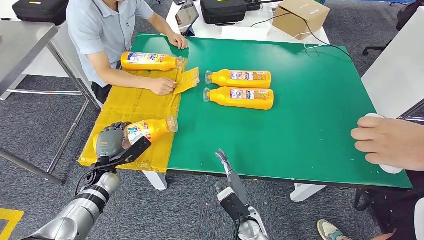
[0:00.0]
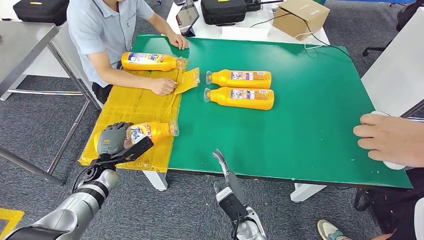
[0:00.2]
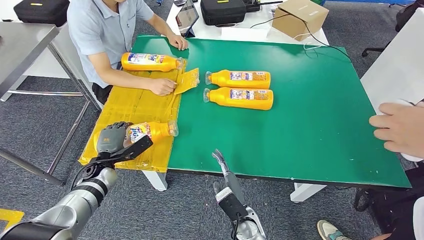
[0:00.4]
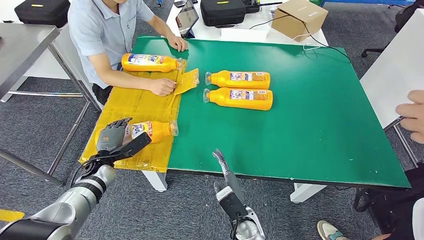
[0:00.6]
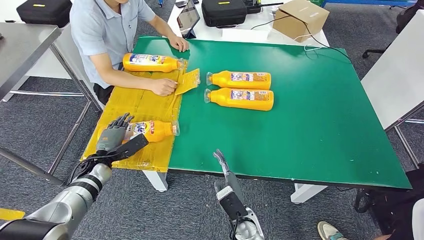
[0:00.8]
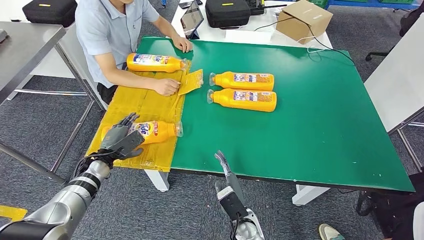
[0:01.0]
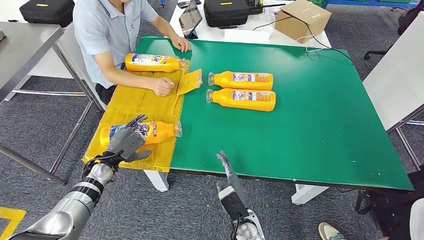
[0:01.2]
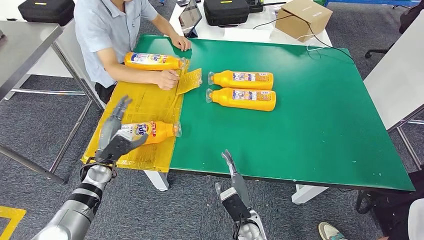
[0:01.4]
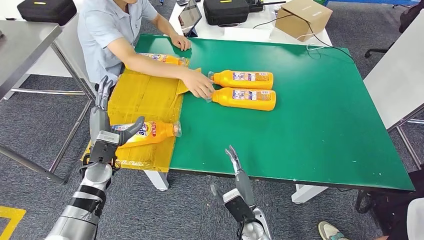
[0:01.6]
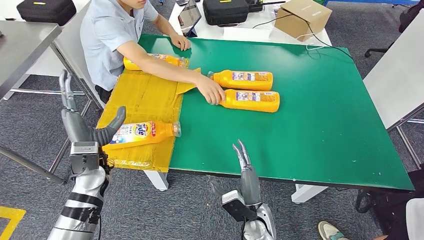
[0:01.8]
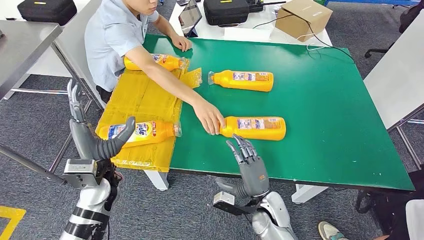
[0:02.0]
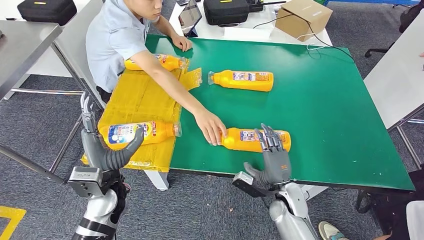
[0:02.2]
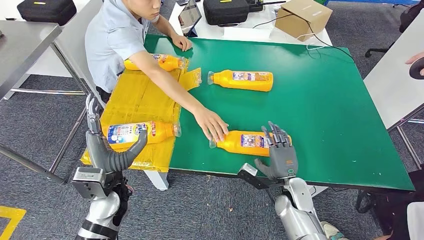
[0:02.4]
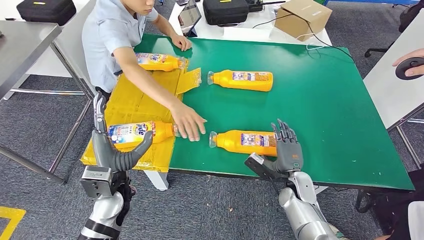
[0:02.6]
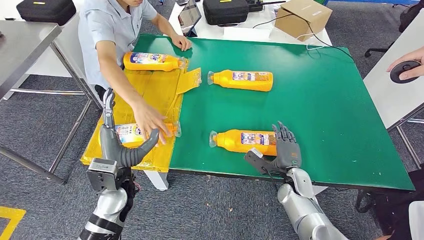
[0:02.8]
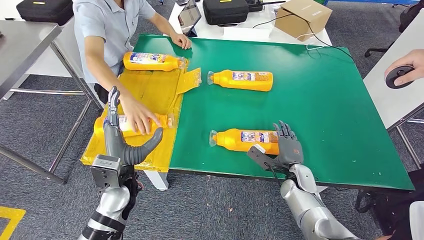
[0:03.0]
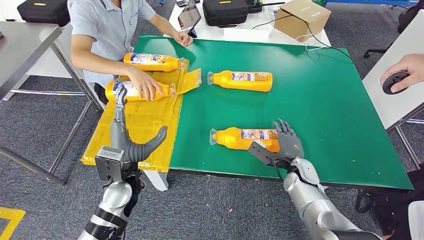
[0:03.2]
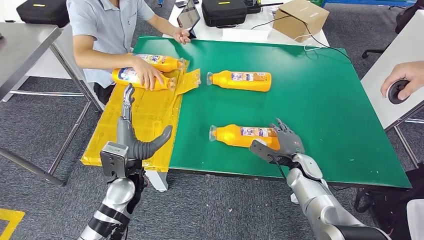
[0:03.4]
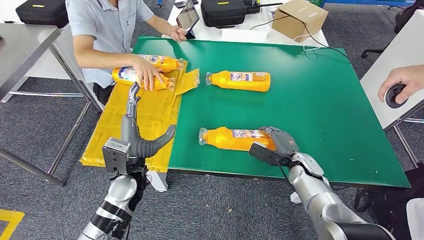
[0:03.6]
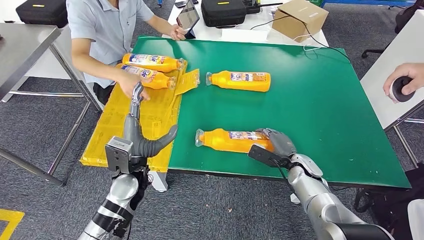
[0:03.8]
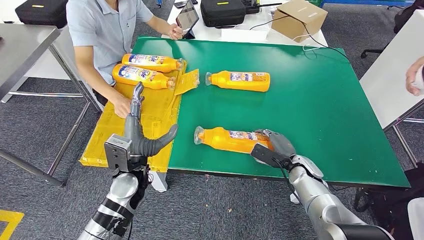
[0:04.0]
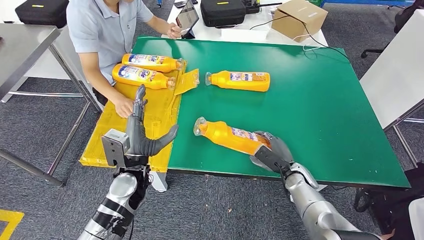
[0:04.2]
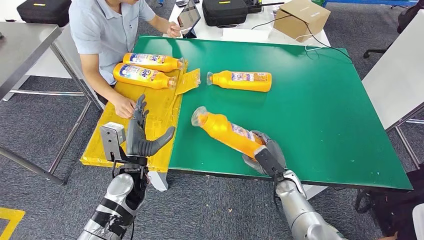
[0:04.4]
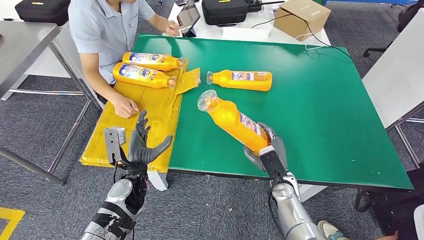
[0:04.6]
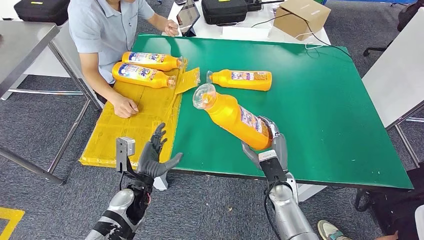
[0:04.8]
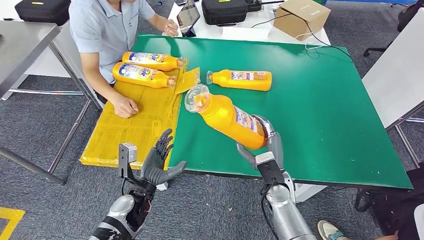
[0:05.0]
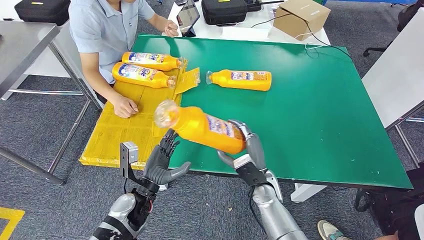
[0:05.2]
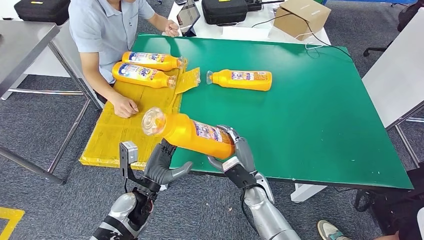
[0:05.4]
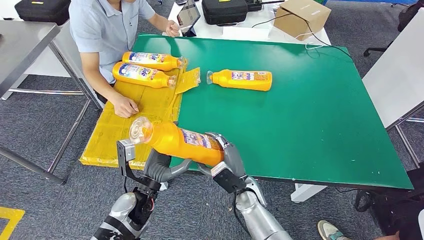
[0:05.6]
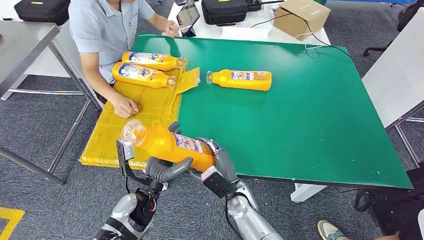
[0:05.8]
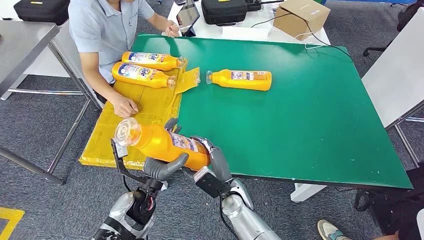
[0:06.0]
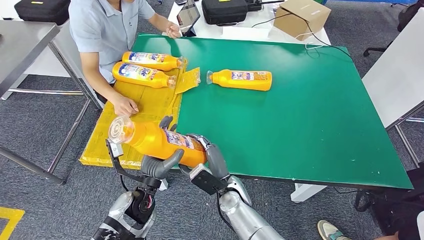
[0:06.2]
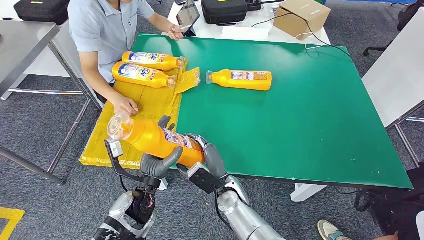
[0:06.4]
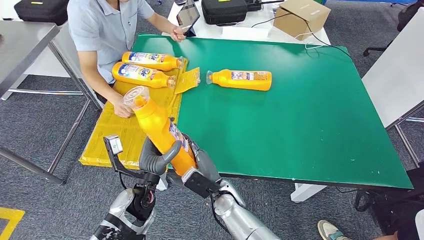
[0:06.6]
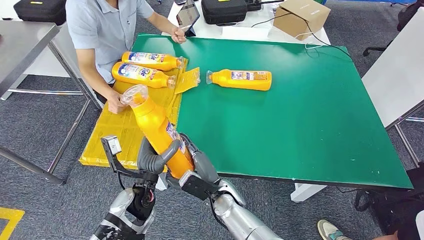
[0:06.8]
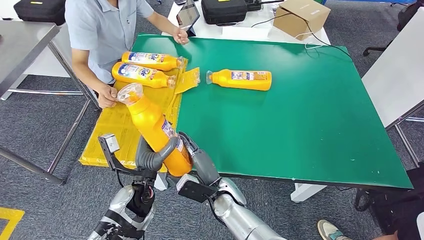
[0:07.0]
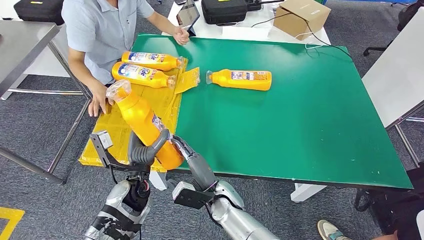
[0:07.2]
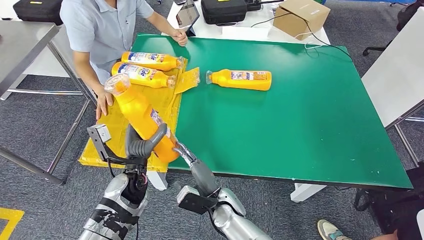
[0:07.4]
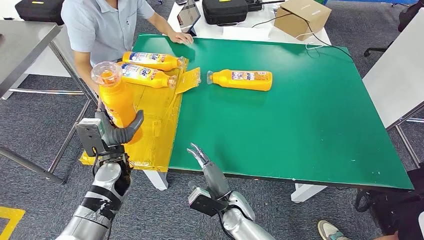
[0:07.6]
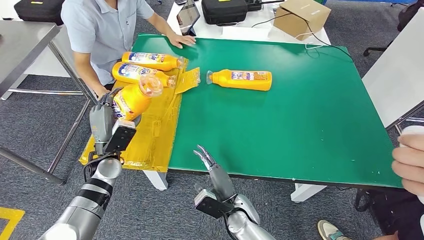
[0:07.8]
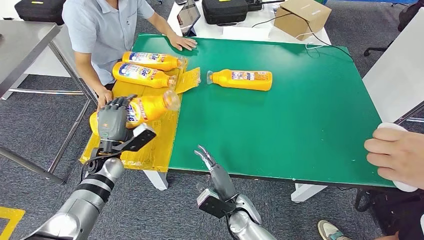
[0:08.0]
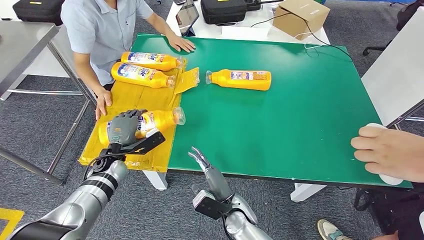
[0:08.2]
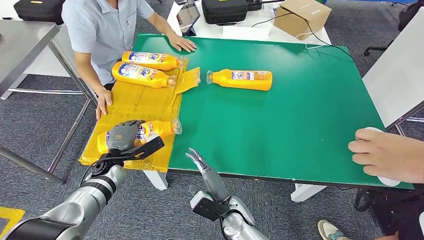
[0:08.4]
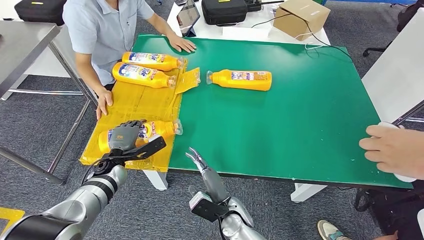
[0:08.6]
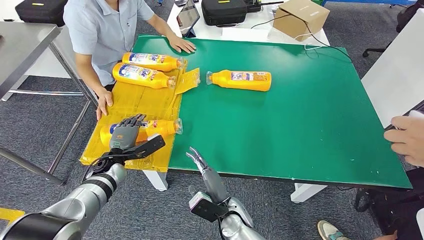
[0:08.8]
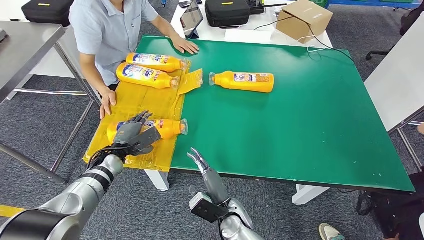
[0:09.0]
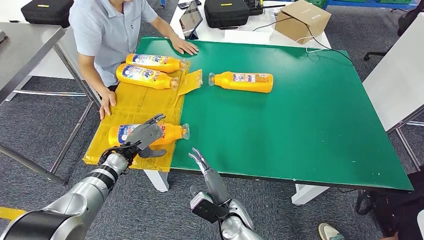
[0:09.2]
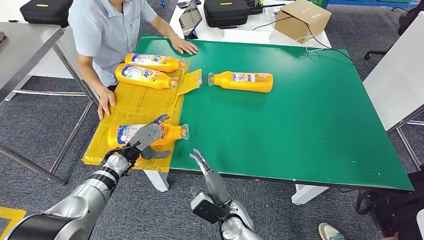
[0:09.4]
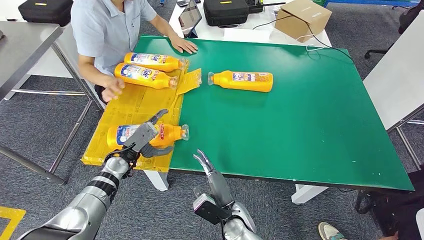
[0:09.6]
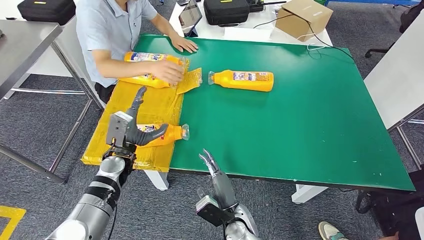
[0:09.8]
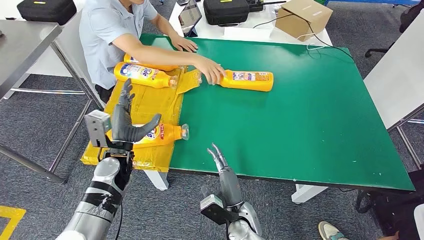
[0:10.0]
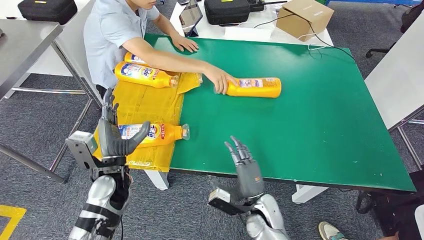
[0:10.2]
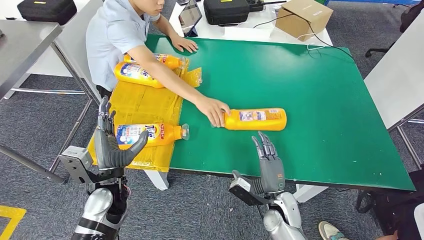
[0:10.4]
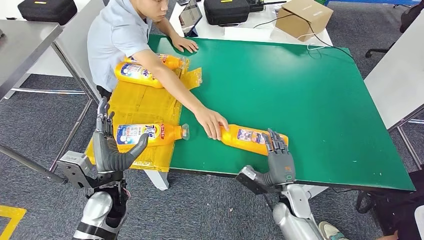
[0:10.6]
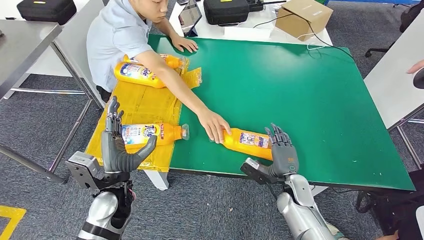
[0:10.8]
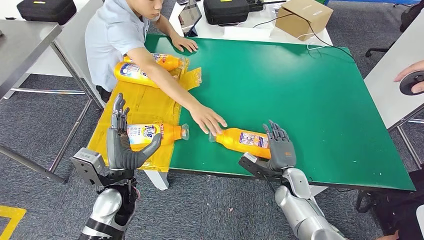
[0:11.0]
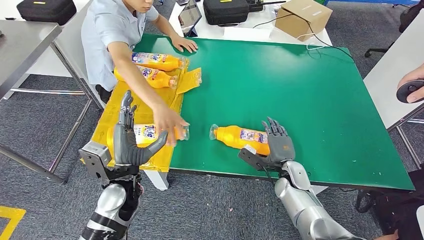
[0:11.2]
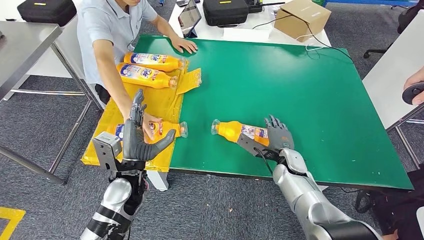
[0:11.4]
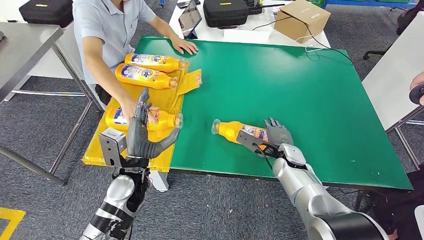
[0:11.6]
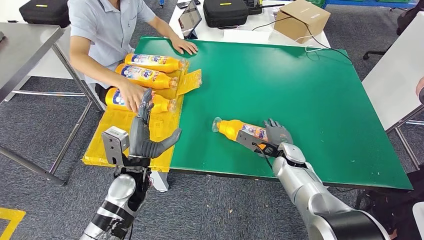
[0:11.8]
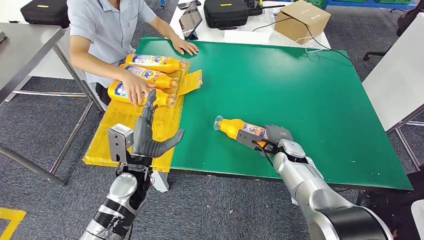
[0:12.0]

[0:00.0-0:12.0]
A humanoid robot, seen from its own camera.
Step, 0:03.8 to 0:05.2: Pick up the fast-moving consumer goods bottle from the table.
Step, 0:05.4 to 0:10.0: Flip the fast-moving consumer goods bottle to the front side.
0:06.0 to 0:07.6: The left hand heads to the left and forward, covering approximately 10 cm.

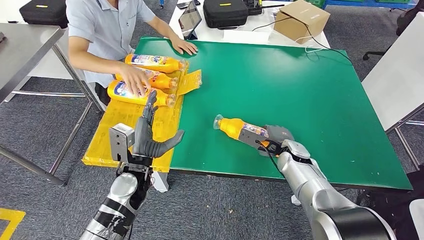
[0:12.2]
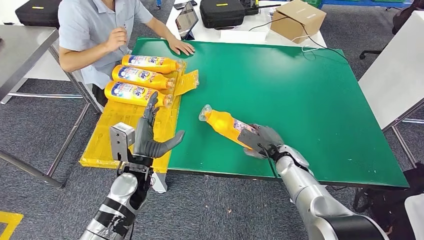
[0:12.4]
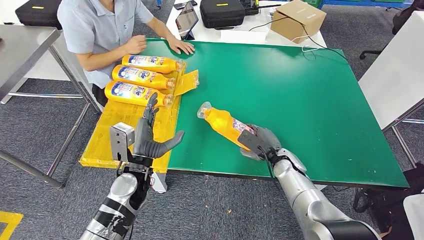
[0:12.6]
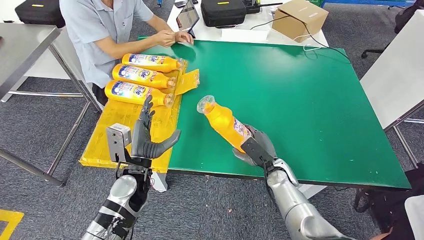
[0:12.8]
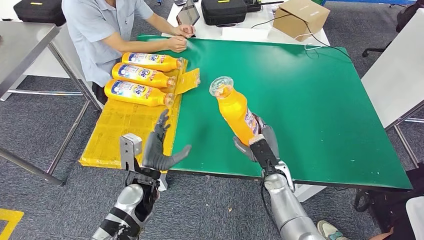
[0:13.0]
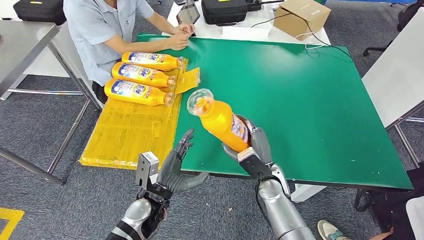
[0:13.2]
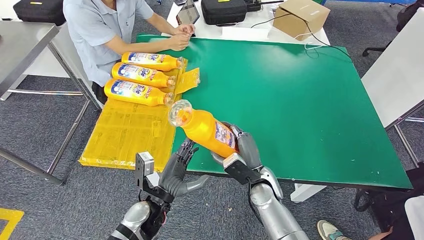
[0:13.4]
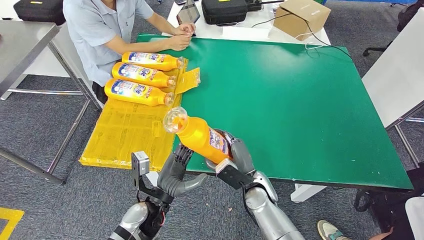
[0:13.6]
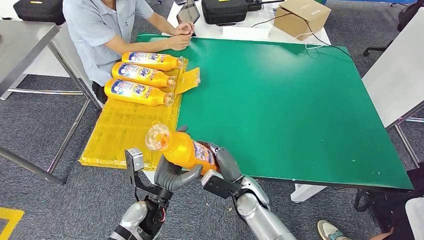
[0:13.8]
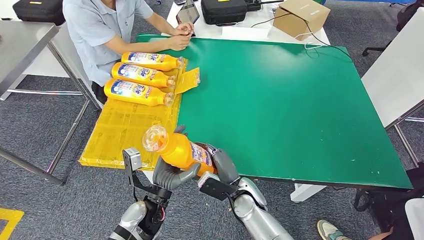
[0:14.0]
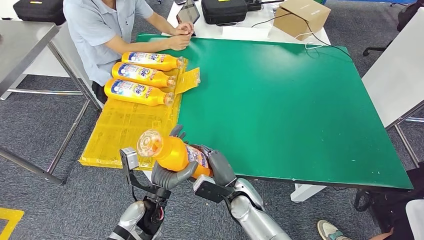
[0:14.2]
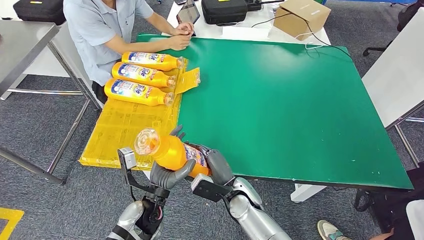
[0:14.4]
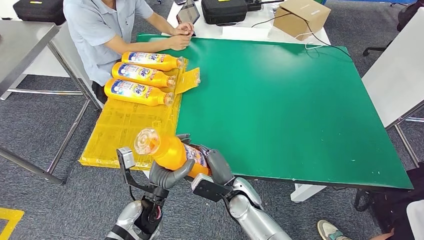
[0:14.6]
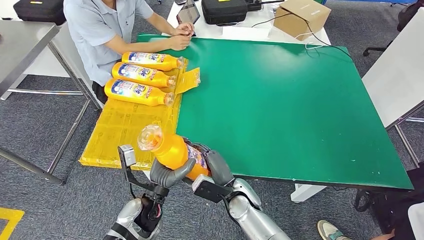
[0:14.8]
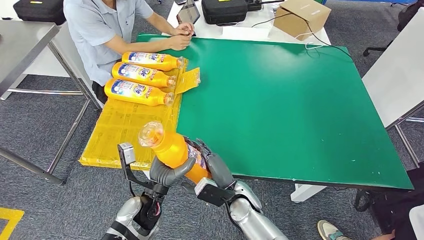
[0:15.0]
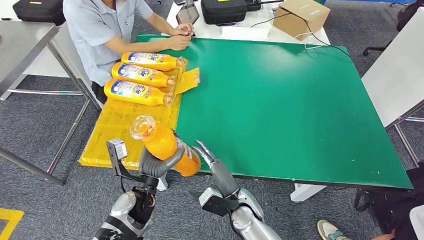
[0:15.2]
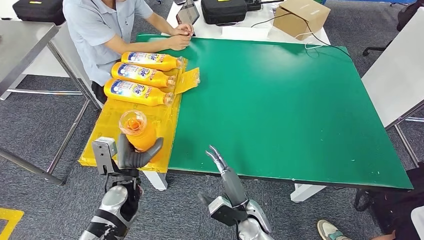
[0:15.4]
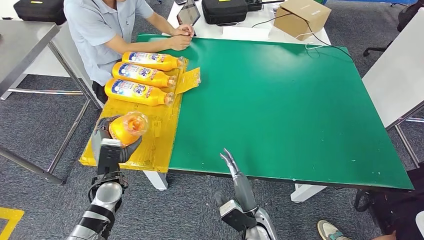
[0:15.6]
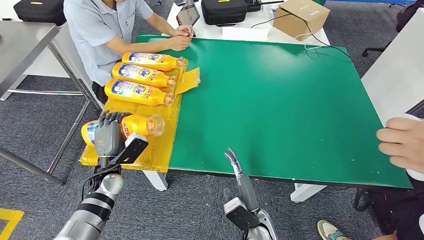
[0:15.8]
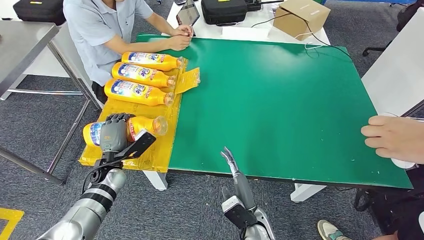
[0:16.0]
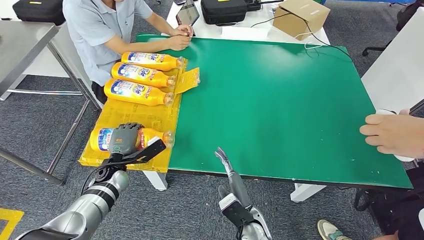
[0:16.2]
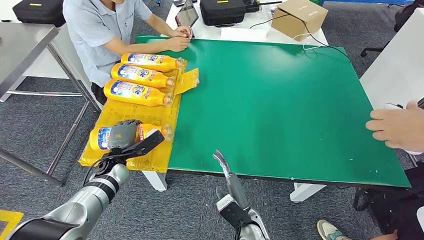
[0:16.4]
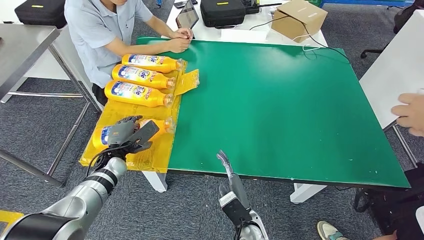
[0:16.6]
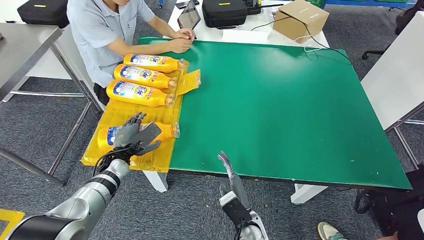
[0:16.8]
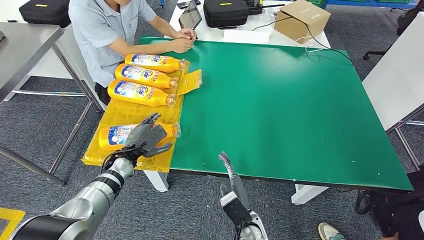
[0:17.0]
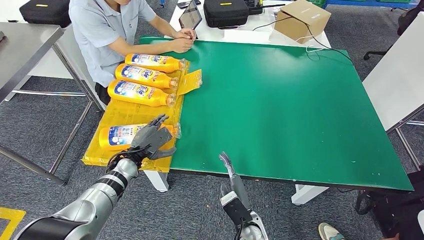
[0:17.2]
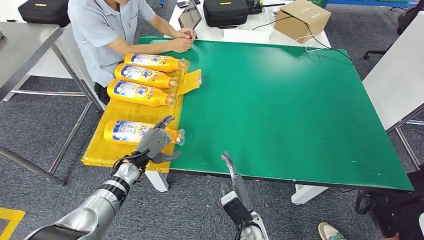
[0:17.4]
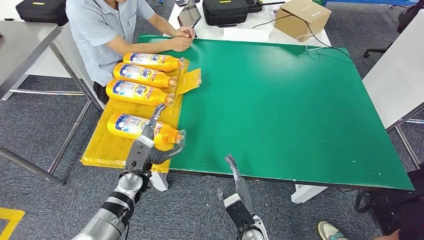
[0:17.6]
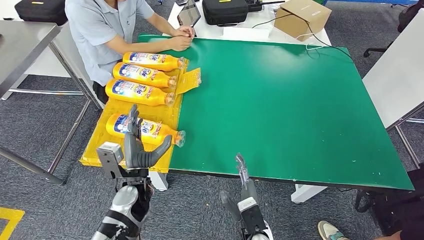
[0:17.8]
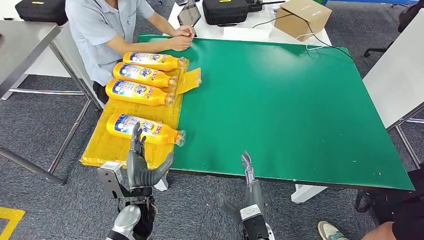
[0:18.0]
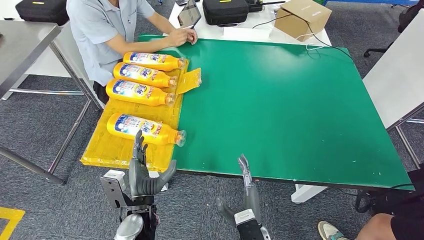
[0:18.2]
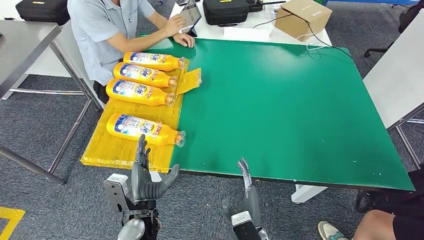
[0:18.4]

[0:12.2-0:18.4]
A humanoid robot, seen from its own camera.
Step, 0:12.2 to 0:15.2: Pick up the fast-moving consumer goods bottle from the table.
0:13.8 to 0:15.4: The right hand moves backward, some 5 cm. The left hand travels to the left by roughly 10 cm.
